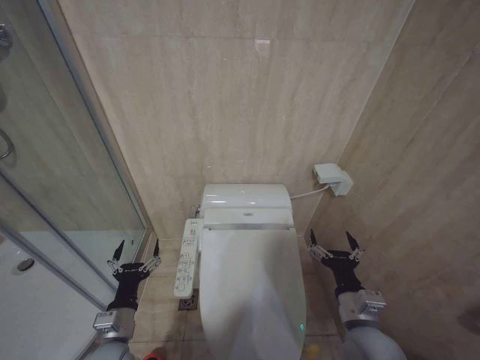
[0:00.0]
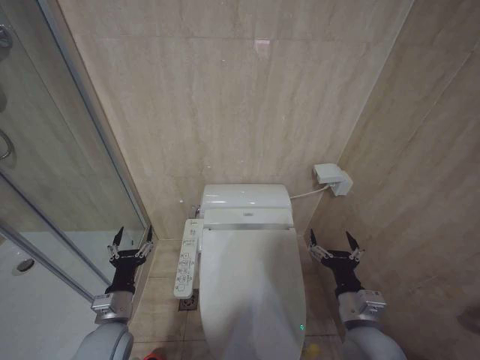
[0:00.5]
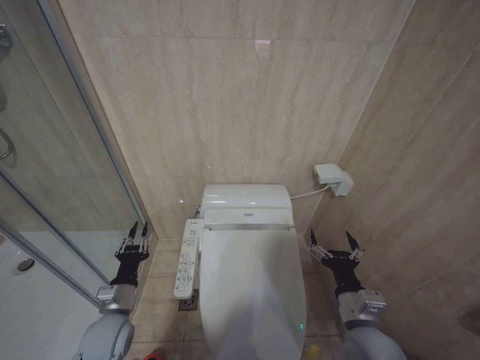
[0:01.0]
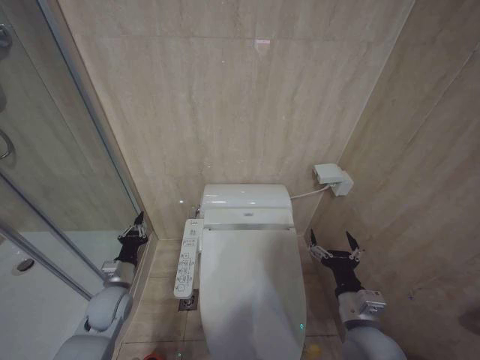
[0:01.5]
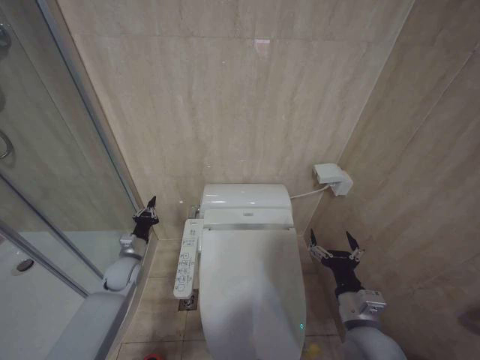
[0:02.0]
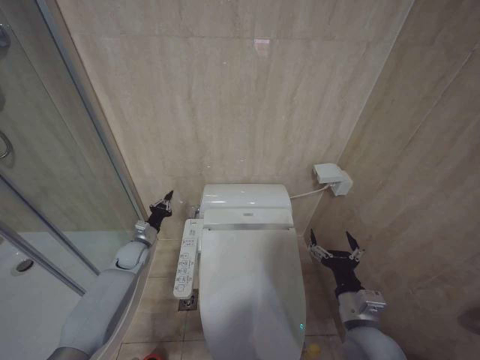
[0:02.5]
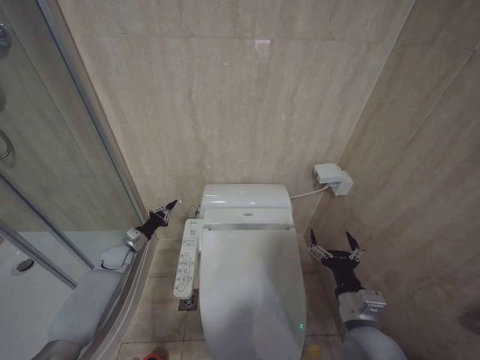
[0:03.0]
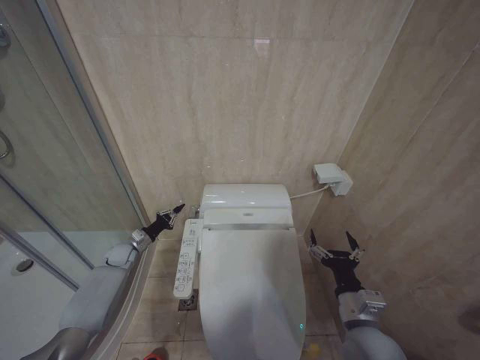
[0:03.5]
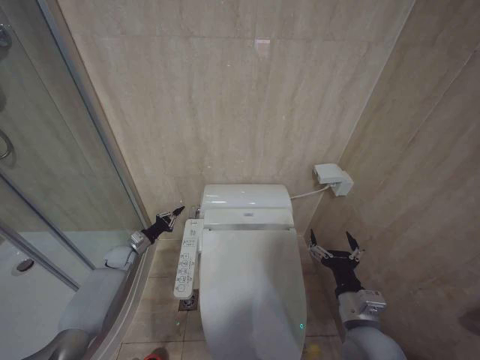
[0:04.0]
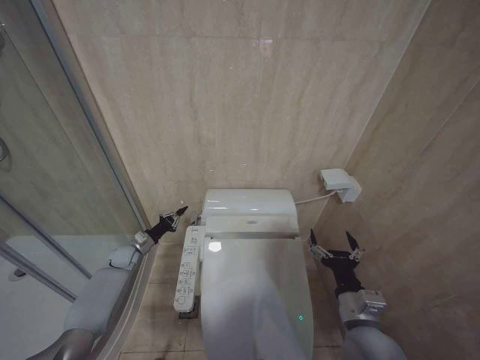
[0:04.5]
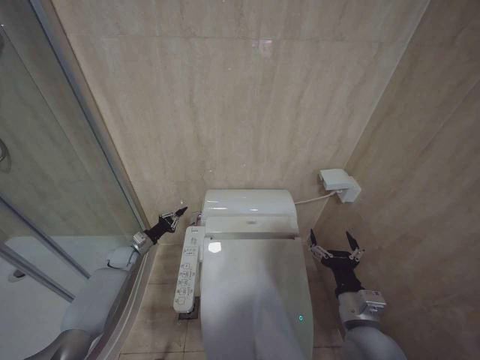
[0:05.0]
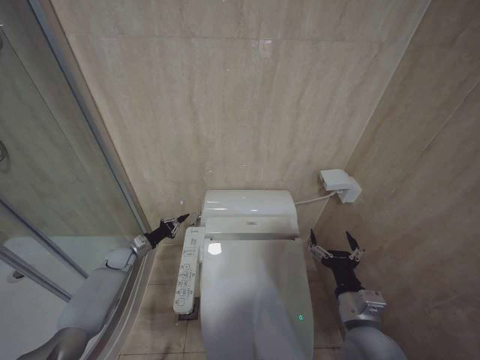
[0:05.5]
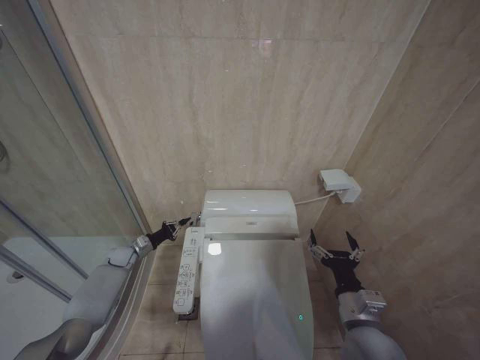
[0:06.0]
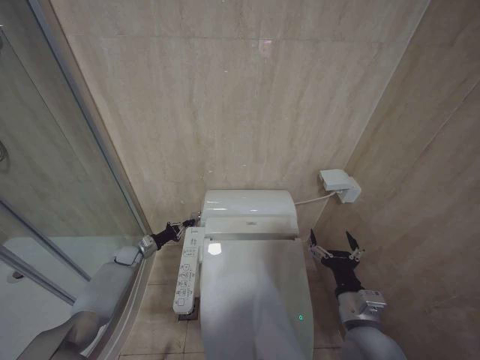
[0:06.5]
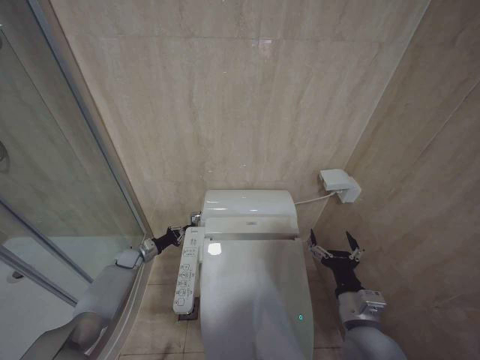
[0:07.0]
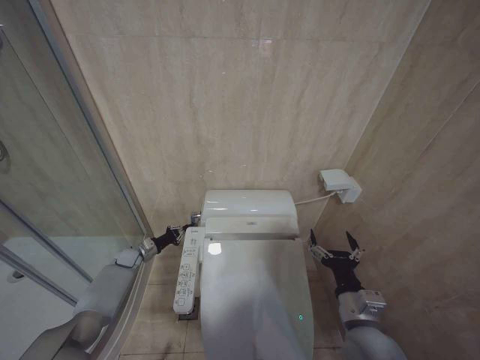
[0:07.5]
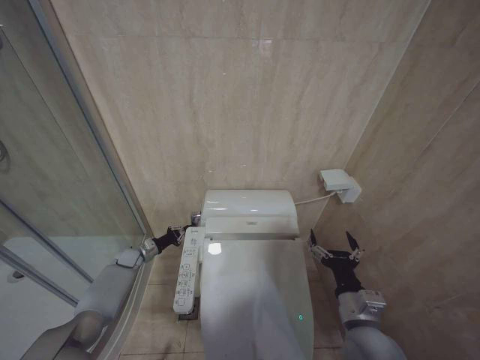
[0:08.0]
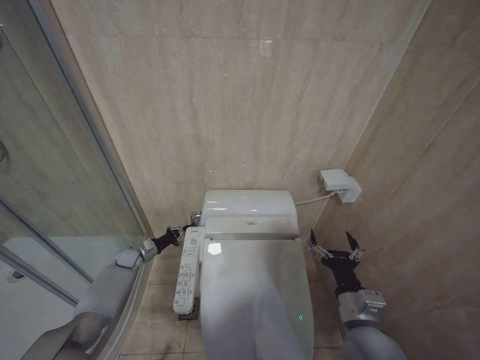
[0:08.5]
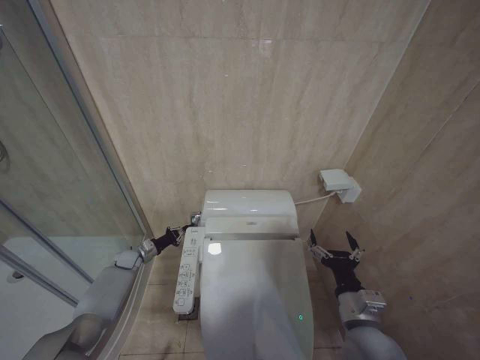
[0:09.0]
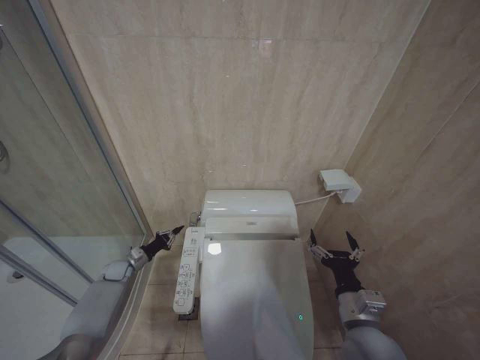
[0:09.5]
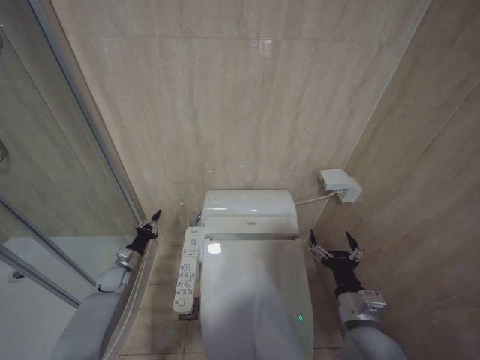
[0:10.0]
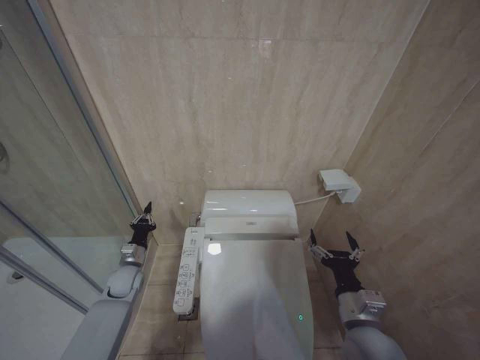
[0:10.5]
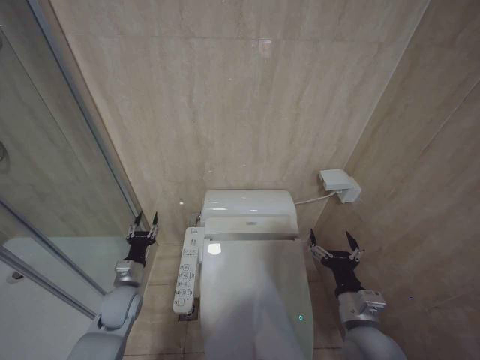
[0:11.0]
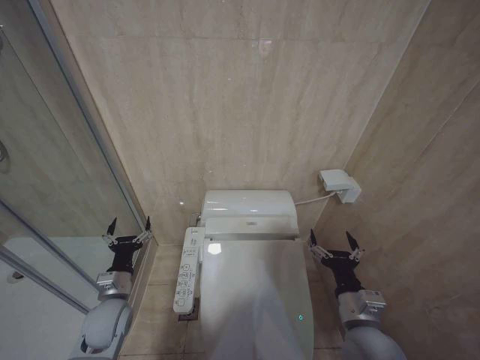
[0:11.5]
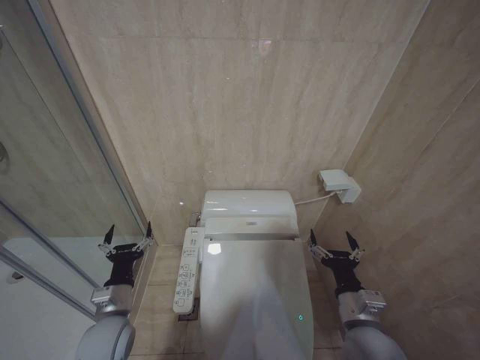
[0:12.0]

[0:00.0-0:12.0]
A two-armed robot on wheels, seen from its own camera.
Task of the whole recording: Open the toilet lid, clean the toilet bowl with a toilet brush, close the toilet lid, and flush.
0:00.0 to 0:02.0: The left gripper heads forward, covering approximately 20 cm, and closes its fingers.
0:02.0 to 0:04.0: The left gripper is displaced forward and to the left by some 10 cm.
0:04.0 to 0:08.0: There are only small adjustments of the grippers.
0:08.0 to 0:10.0: The left gripper heads backward, covering roughly 5 cm.
0:10.0 to 0:12.0: The left gripper goes some 25 cm backward, to the right and upward, and opens its fingers.

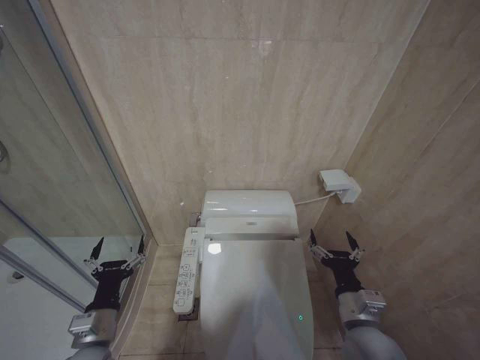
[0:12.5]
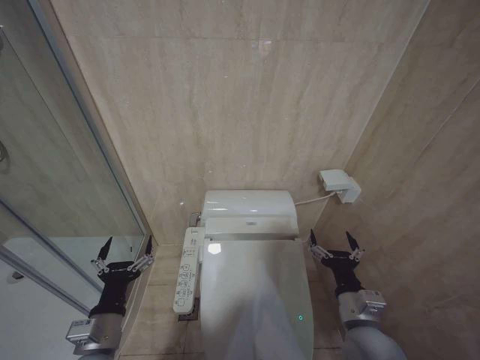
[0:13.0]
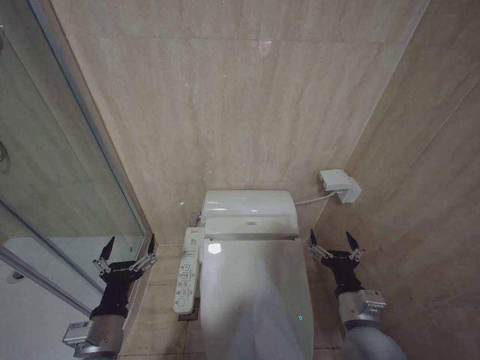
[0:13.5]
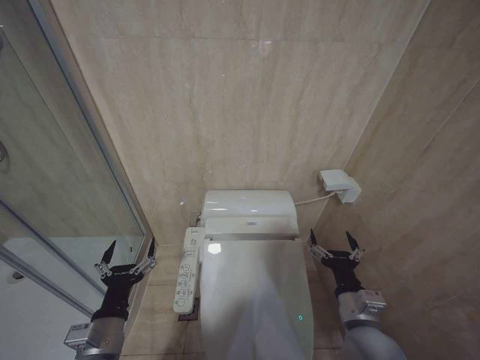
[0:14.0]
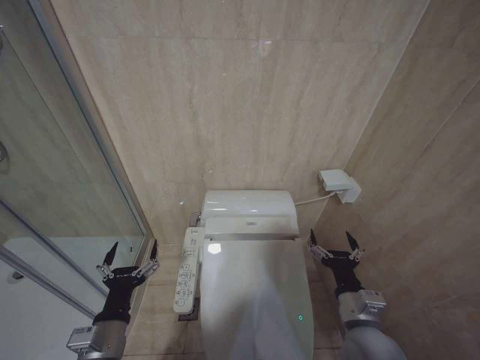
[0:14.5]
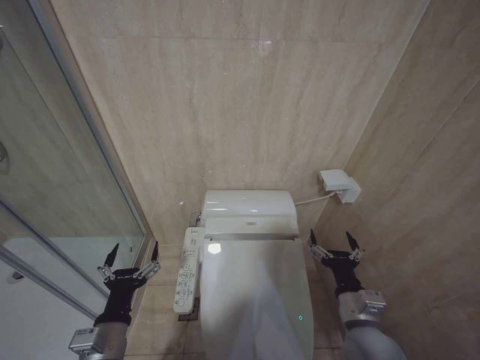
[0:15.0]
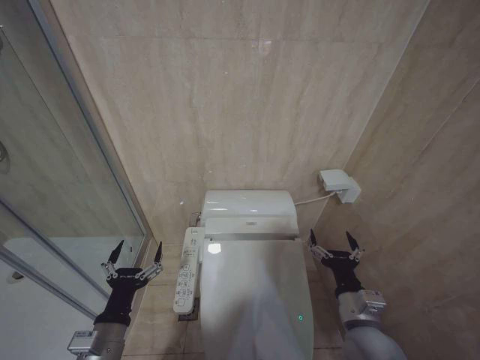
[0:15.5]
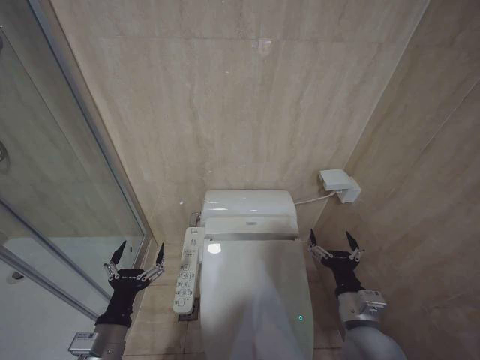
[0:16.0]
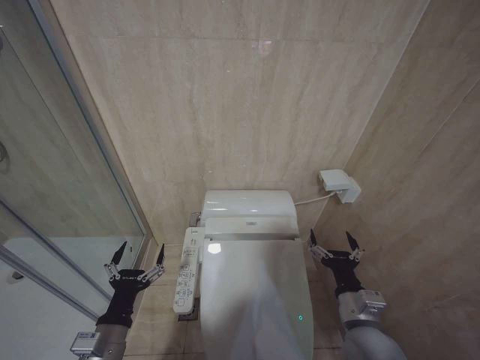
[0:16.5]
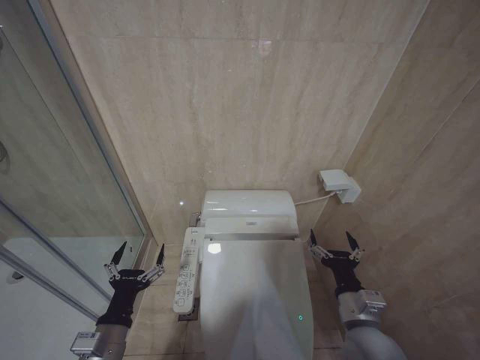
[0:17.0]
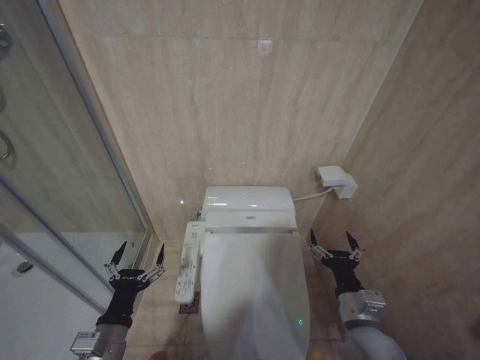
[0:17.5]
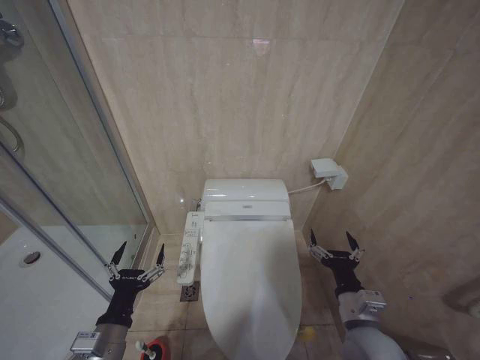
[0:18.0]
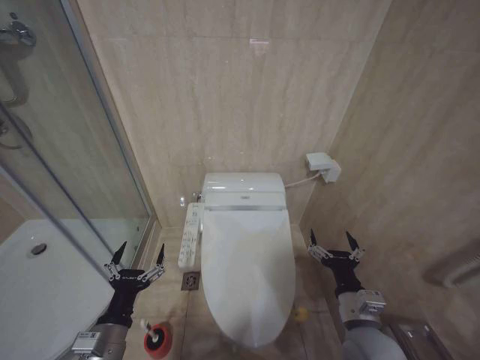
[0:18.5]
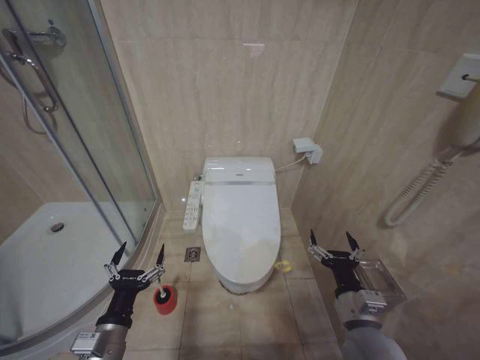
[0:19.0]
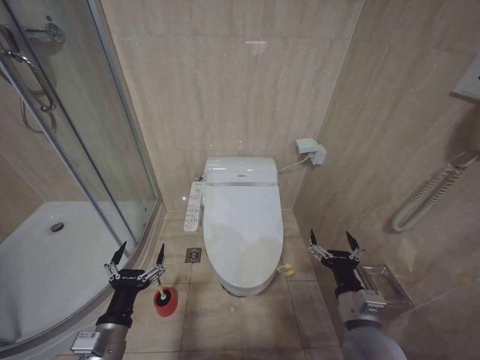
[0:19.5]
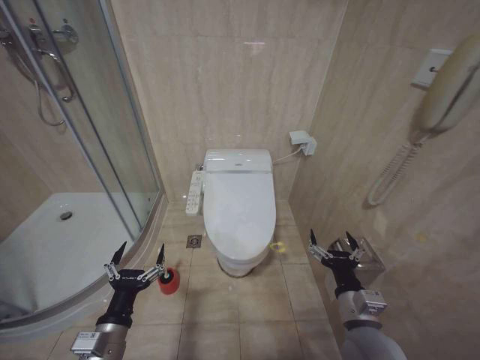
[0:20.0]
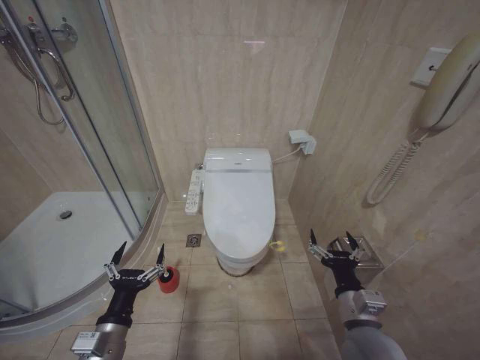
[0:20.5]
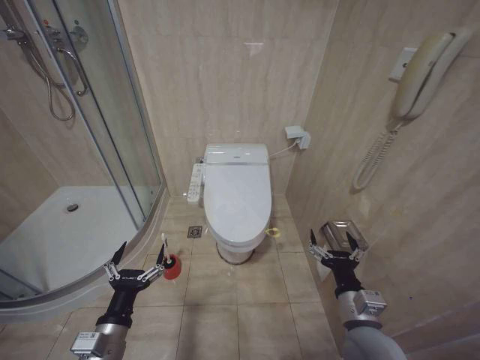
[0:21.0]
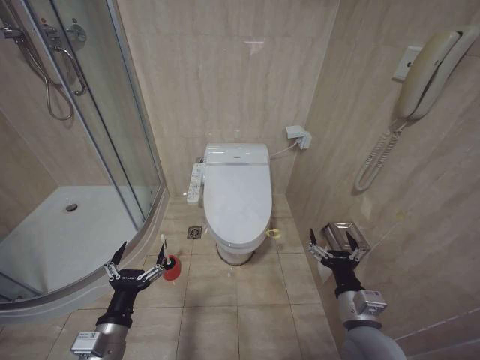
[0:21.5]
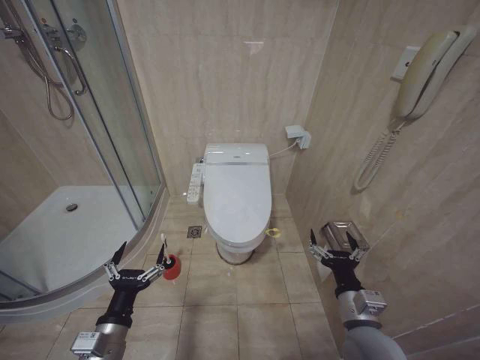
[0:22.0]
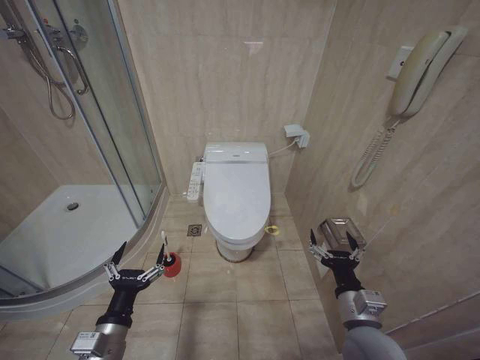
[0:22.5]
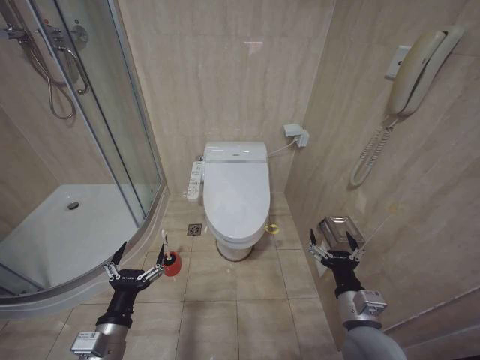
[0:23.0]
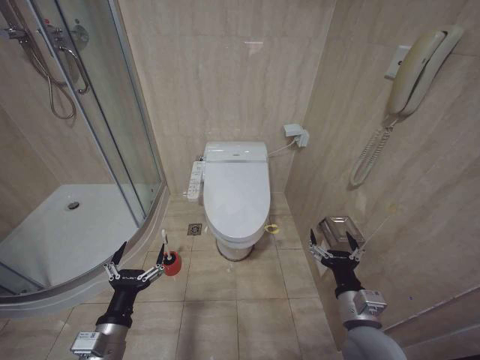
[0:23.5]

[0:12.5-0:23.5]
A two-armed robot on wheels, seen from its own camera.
Task of the whole recording: Open the toilet lid, clean the toilet bowl with a toilet brush, close the toilet lid, and flush.
0:12.5 to 0:14.5: The left gripper changes place by approximately 5 cm.
0:14.5 to 0:16.0: There are only small adjustments of the grippers.
0:16.0 to 0:18.0: Neither gripper changes place.
0:20.0 to 0:23.5: The two grippers keep their place.
